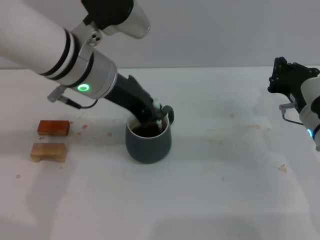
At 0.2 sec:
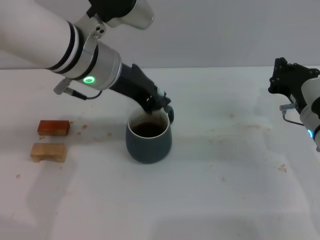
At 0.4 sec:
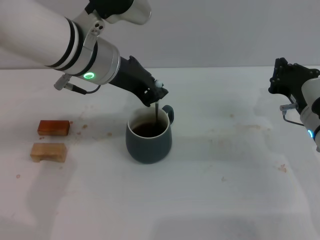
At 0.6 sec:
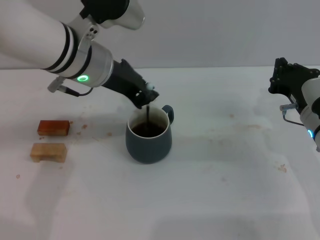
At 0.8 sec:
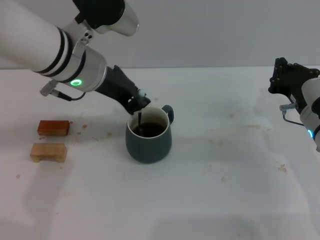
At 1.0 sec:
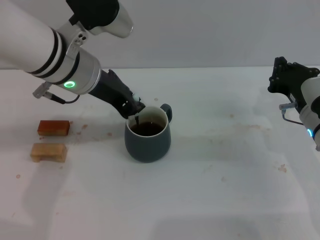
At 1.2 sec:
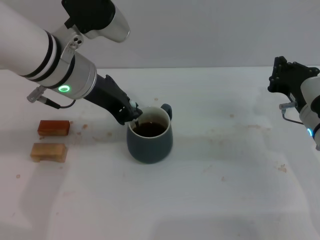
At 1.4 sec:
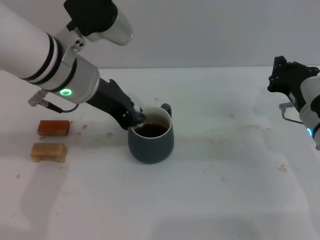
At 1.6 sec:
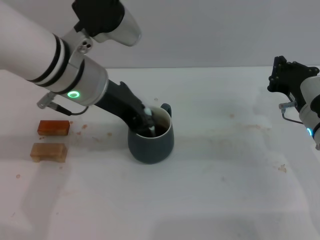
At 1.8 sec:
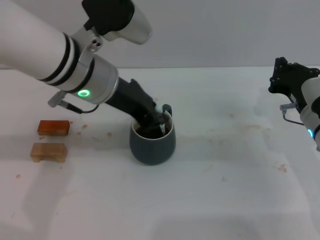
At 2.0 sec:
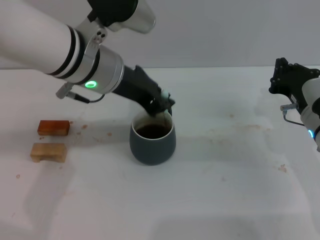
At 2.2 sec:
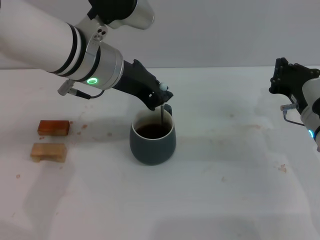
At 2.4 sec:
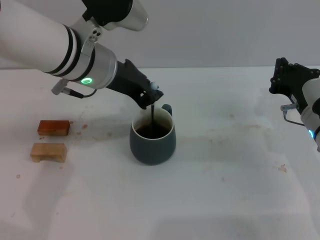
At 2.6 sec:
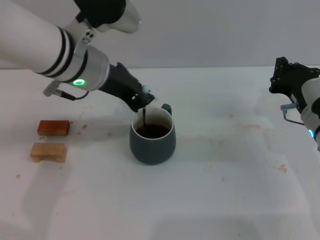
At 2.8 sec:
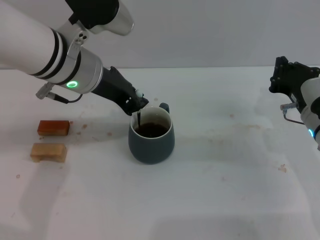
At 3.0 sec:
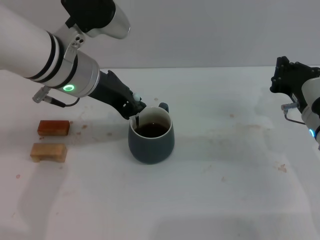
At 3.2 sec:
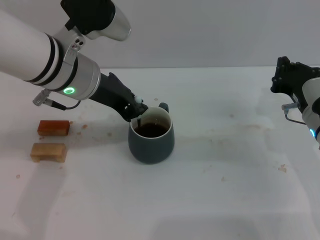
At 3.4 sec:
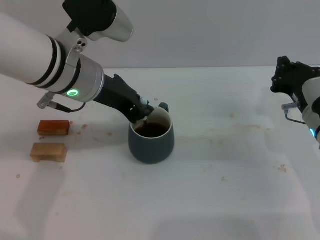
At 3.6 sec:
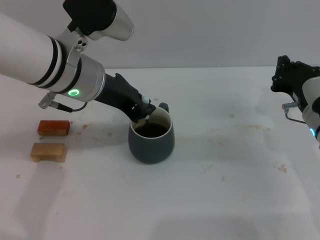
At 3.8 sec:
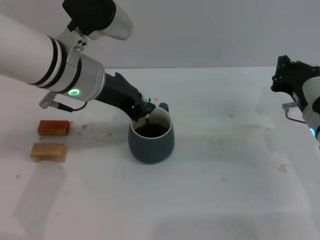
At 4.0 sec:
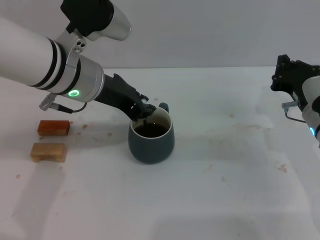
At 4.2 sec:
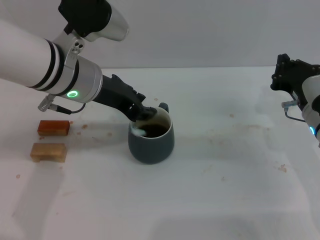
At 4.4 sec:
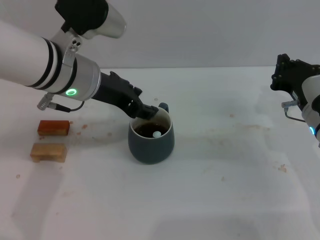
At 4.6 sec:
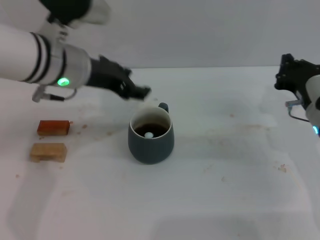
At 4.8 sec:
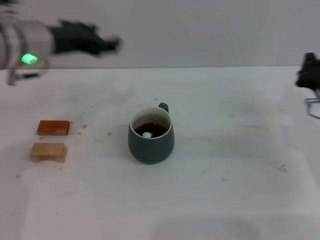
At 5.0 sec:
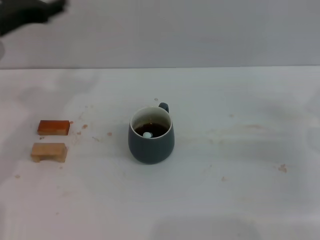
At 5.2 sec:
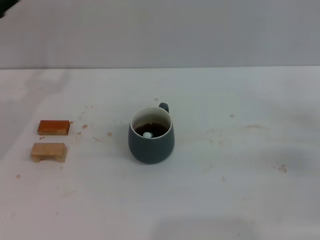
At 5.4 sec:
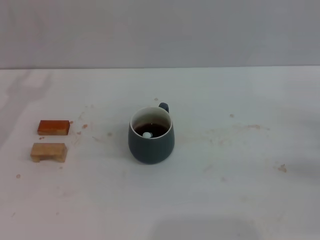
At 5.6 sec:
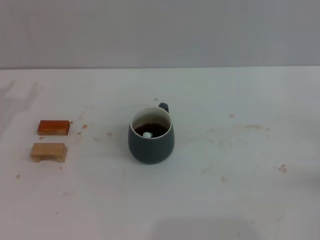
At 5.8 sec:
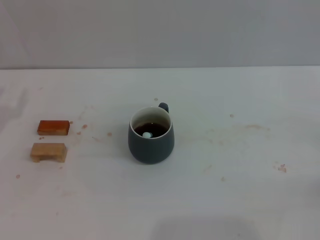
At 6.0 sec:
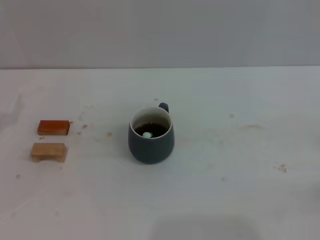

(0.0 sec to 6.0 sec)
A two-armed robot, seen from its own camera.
Task of the whole recording: Move the grey cup to the center, lift the blue spoon, stir it three times in the cup, and put the spoon into the cup.
Step, 0.0 sec - 4.4 sec: Stir the coffee in the cup with the left gripper.
0.0 sec - 3.0 sec: The grippers make only small movements.
3.0 sec - 4.4 sec: The left gripper opens.
4.4 sec - 6.0 sec: The right gripper heads to the right and backward, covering roughly 20 cm, while the left gripper moves to the left and downward, approximately 25 cm, and opens.
